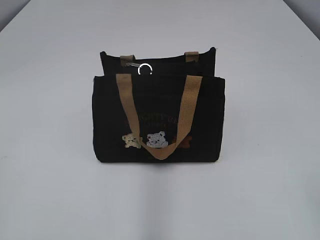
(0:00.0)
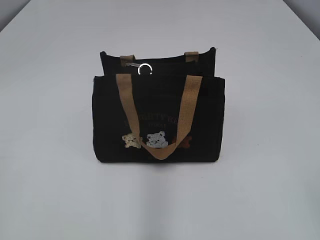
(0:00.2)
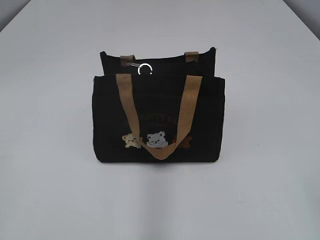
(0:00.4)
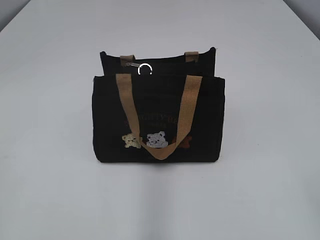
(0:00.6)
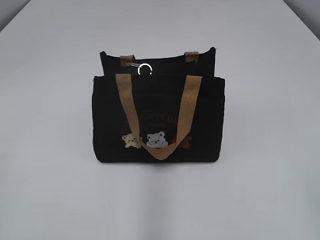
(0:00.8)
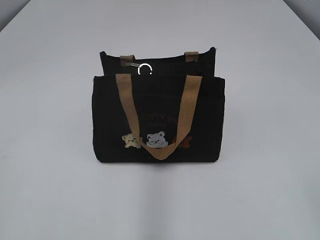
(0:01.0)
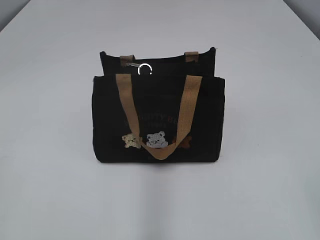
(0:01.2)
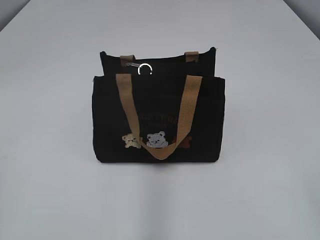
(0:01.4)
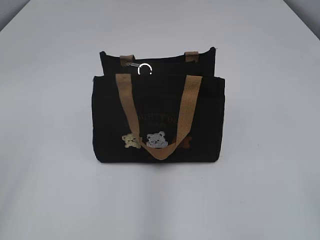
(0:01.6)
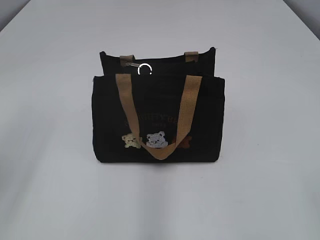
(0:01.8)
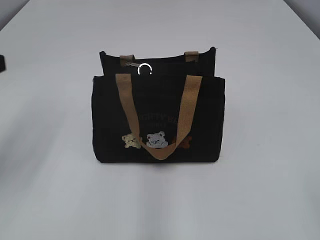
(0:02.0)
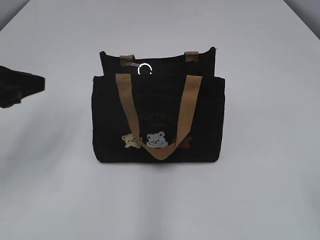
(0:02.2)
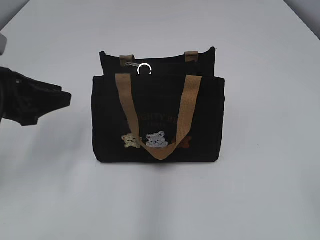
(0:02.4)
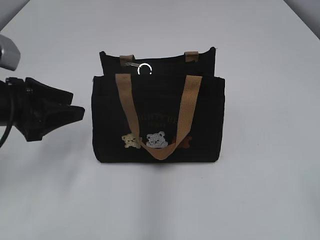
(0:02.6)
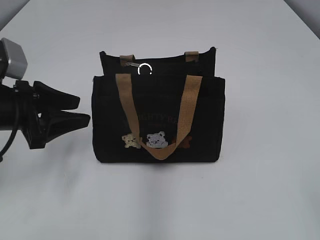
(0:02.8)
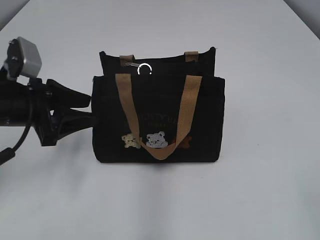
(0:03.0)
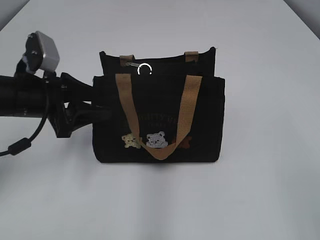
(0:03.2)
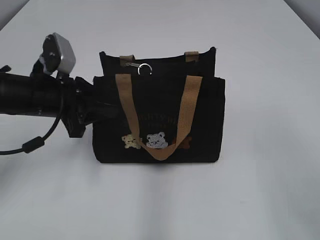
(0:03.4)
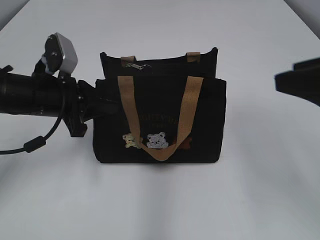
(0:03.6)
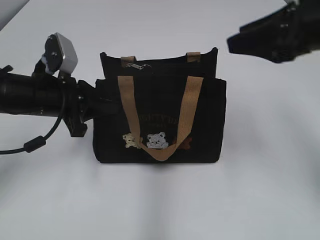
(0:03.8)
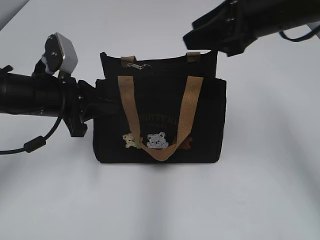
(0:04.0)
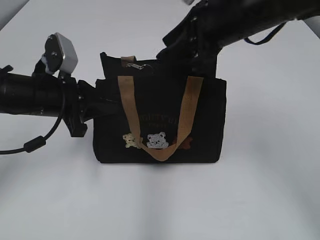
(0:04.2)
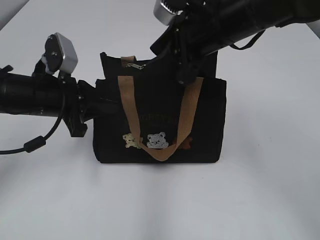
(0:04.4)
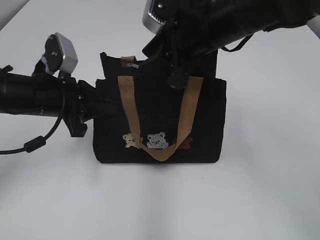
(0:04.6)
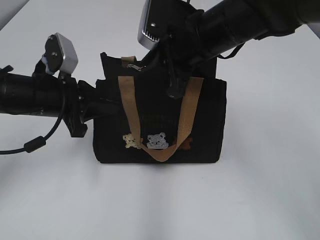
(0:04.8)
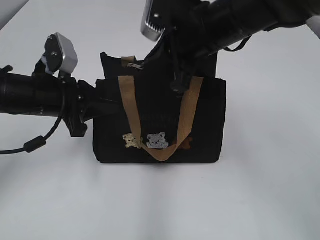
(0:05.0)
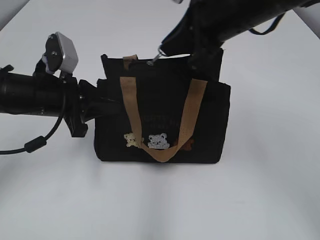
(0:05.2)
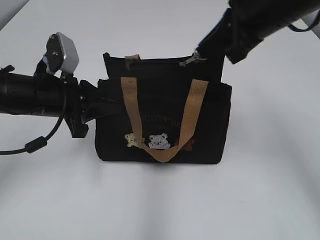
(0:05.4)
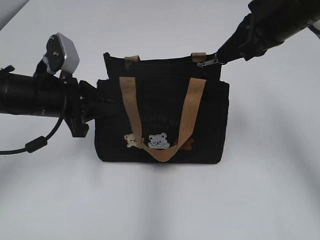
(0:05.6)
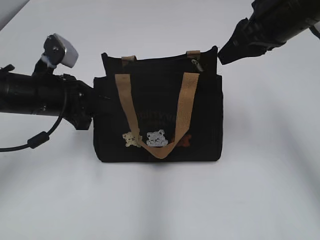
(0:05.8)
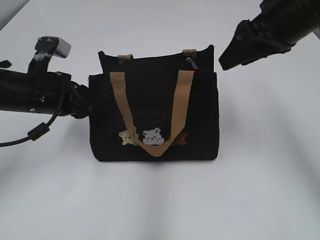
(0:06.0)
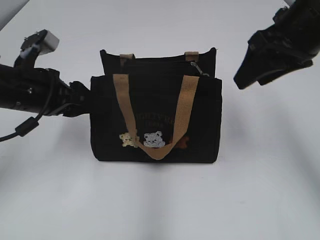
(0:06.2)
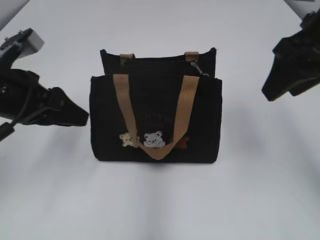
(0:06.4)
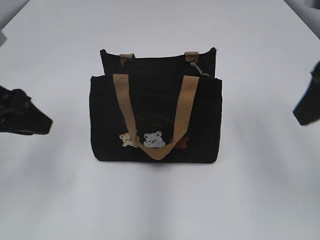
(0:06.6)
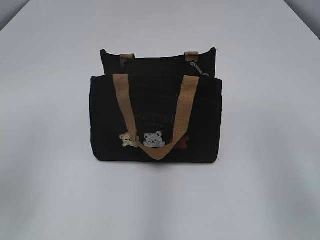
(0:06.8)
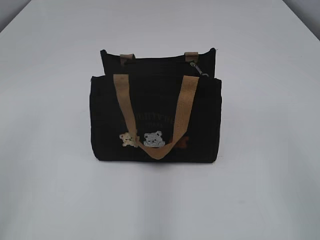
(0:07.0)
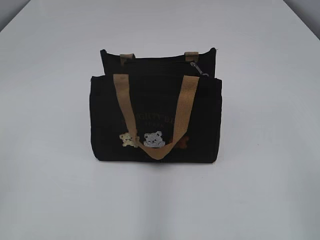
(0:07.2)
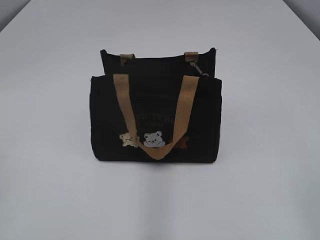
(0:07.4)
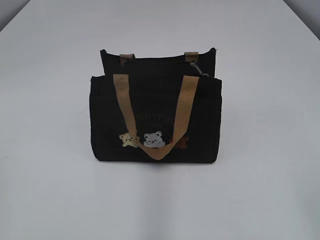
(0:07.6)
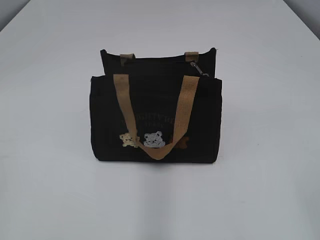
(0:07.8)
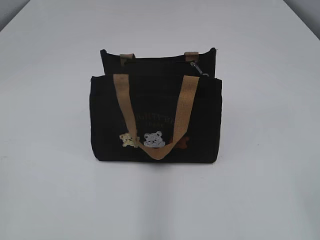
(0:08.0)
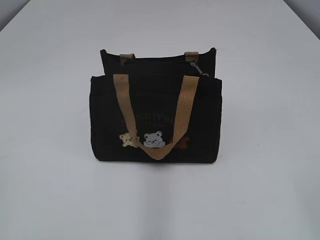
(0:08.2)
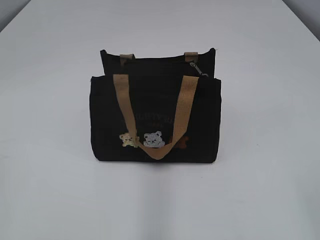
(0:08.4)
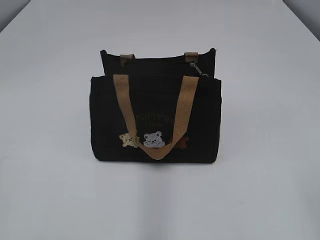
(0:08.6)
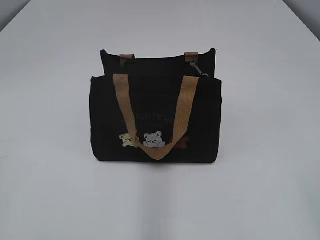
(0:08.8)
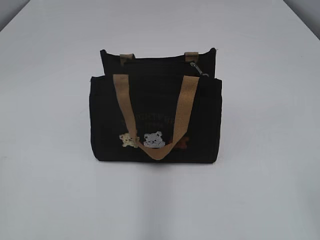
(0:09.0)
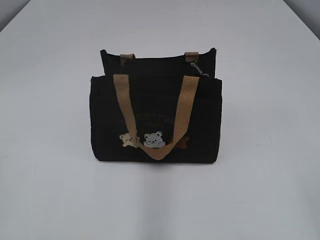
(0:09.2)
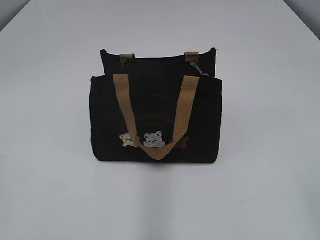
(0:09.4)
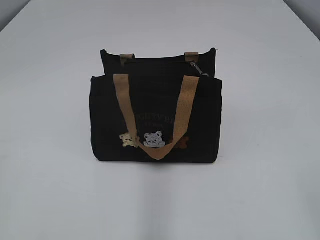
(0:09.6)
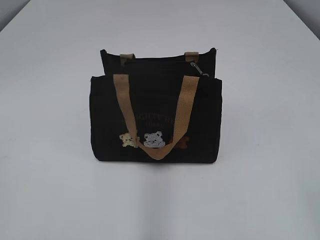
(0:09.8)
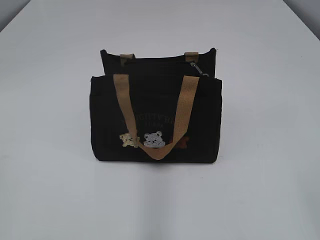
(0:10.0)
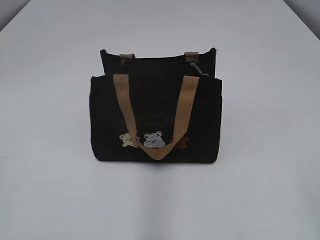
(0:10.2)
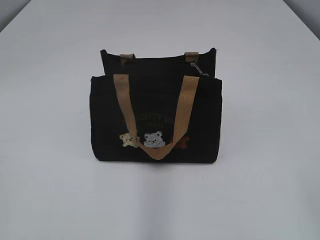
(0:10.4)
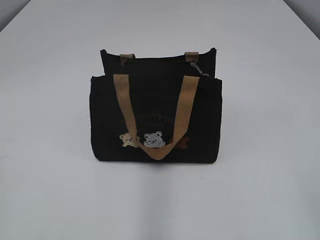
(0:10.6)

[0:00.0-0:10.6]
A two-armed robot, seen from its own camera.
Step, 0:00.0 to 0:05.6: Pull open the zipper with your right hand.
Step, 0:05.8 to 0:06.2: Hold the bag with your left hand.
0:01.6 to 0:03.0: The left gripper heads forward and downward, covering approximately 25 cm, and opens its fingers.
0:03.0 to 0:04.6: The right gripper heads forward and to the left, covering about 40 cm; the left gripper closes.
0:04.6 to 0:06.0: The right gripper goes roughly 10 cm to the right, and closes and opens again.
0:06.0 to 0:07.6: The left gripper travels backward and to the left by some 35 cm; the right gripper travels backward by roughly 30 cm.

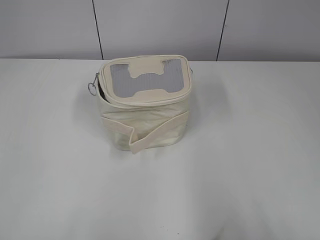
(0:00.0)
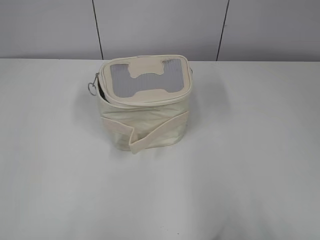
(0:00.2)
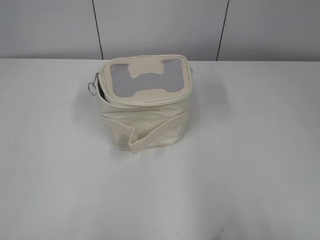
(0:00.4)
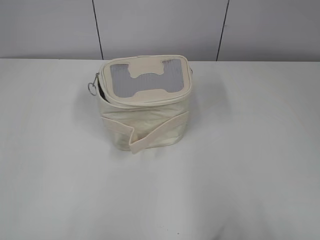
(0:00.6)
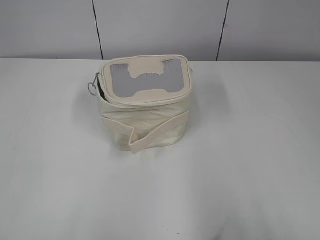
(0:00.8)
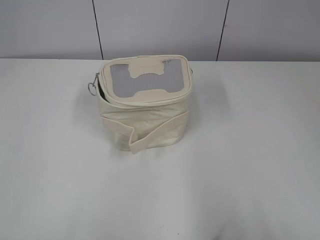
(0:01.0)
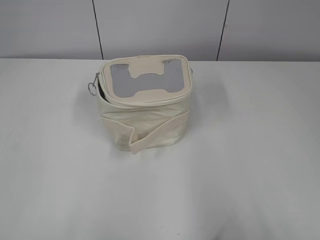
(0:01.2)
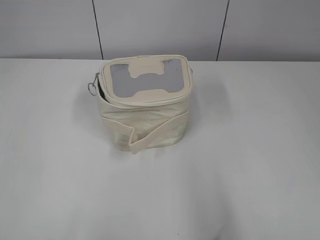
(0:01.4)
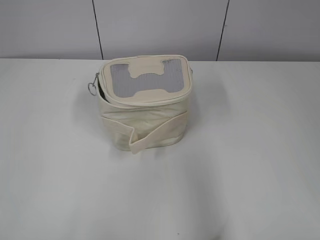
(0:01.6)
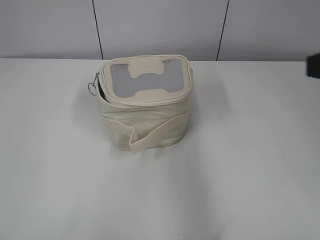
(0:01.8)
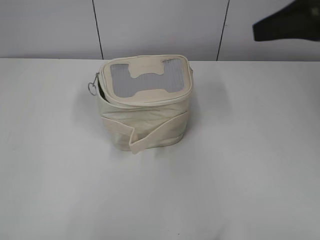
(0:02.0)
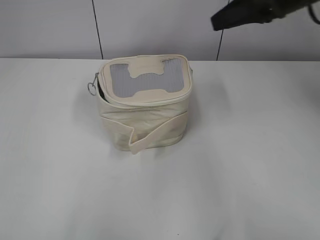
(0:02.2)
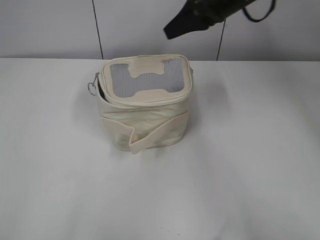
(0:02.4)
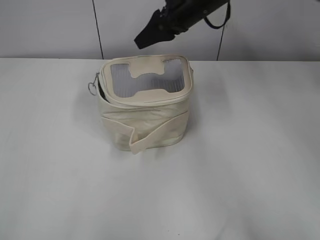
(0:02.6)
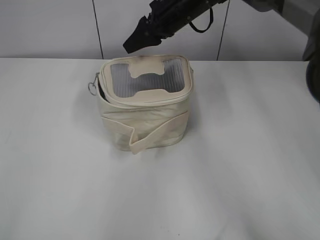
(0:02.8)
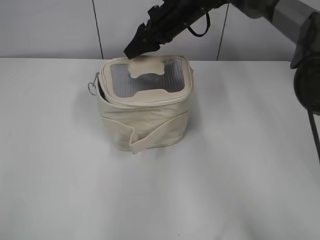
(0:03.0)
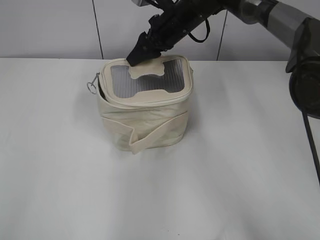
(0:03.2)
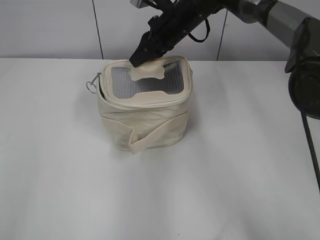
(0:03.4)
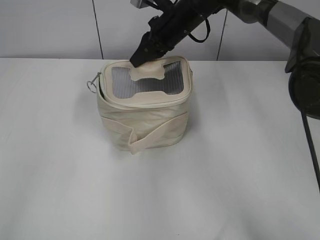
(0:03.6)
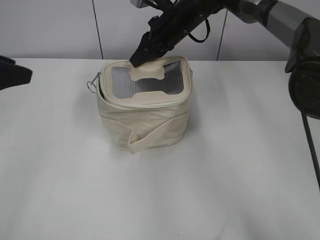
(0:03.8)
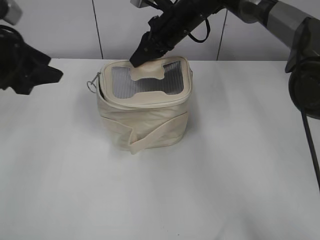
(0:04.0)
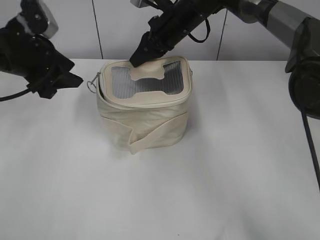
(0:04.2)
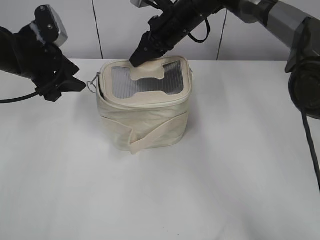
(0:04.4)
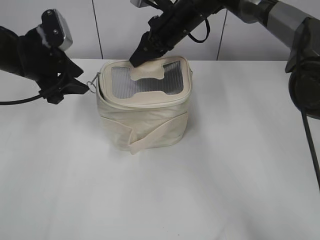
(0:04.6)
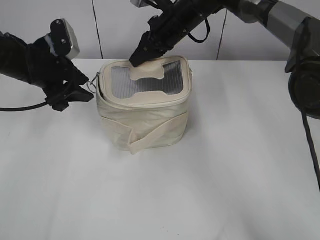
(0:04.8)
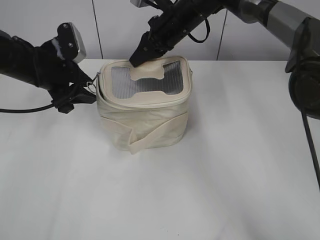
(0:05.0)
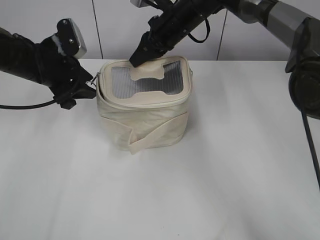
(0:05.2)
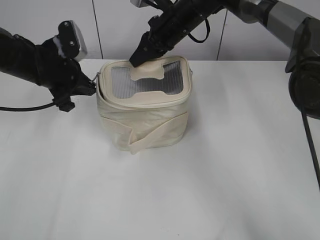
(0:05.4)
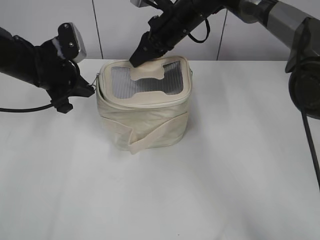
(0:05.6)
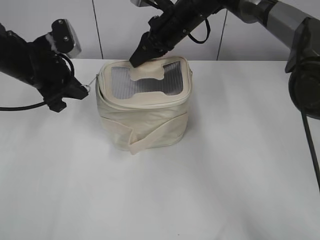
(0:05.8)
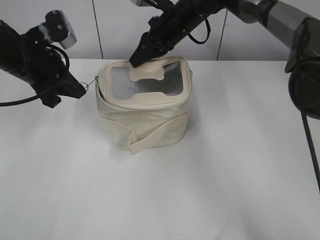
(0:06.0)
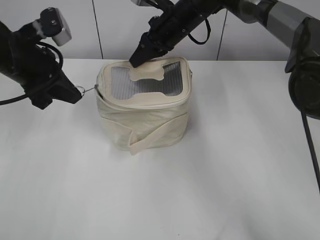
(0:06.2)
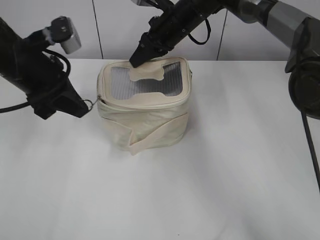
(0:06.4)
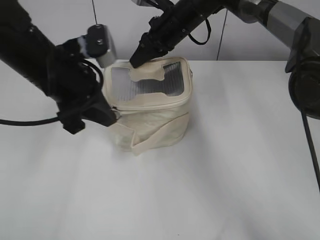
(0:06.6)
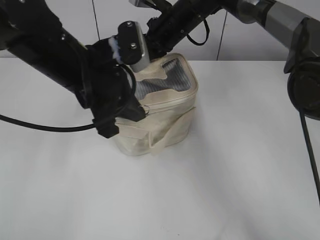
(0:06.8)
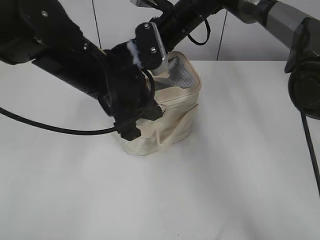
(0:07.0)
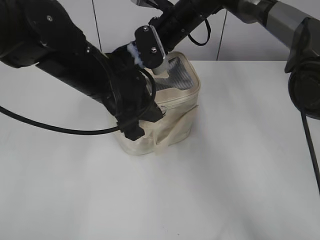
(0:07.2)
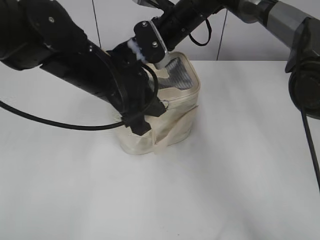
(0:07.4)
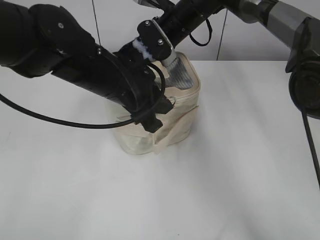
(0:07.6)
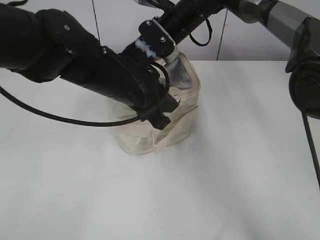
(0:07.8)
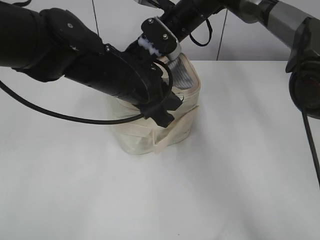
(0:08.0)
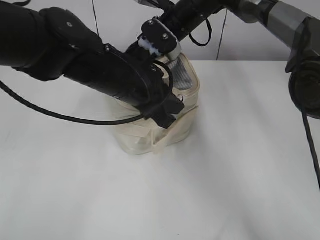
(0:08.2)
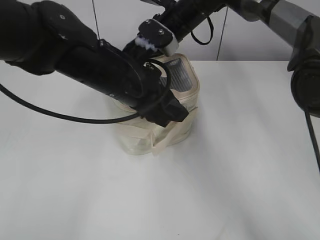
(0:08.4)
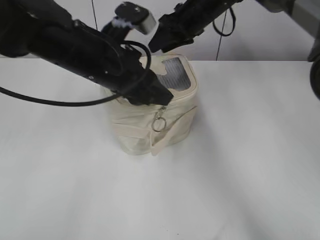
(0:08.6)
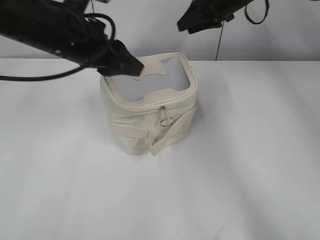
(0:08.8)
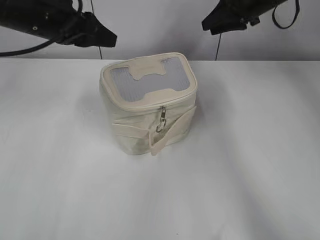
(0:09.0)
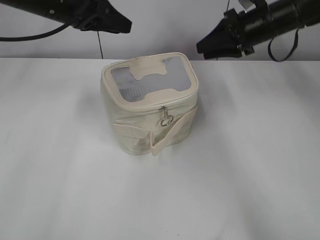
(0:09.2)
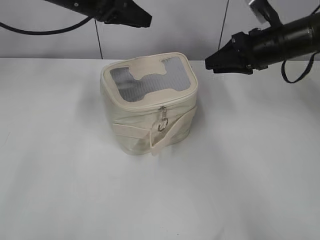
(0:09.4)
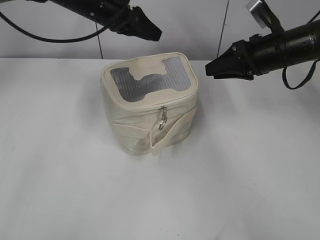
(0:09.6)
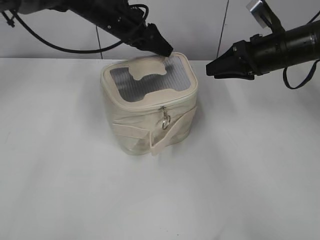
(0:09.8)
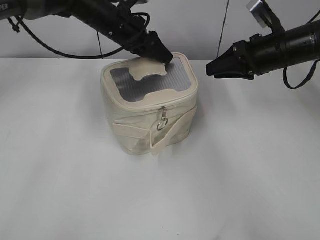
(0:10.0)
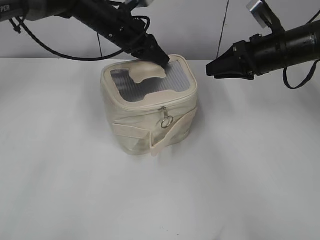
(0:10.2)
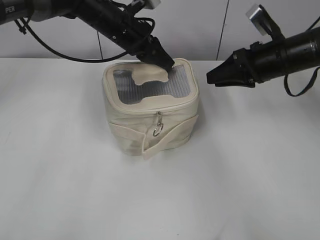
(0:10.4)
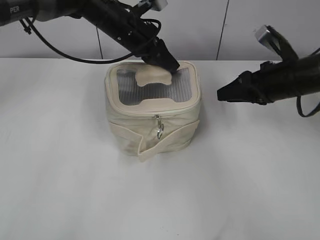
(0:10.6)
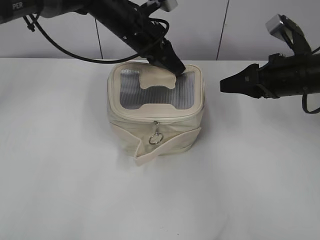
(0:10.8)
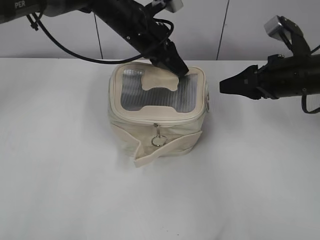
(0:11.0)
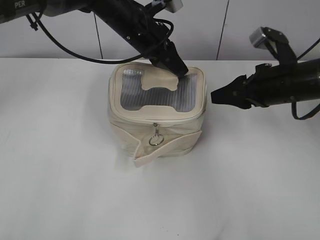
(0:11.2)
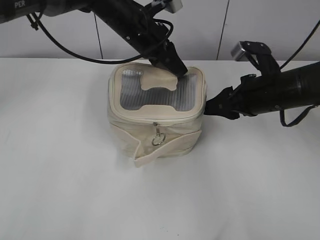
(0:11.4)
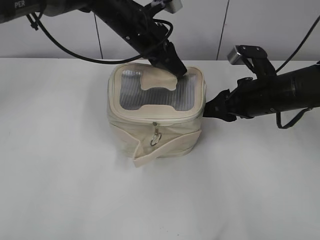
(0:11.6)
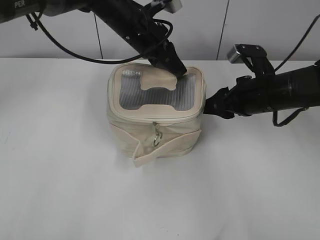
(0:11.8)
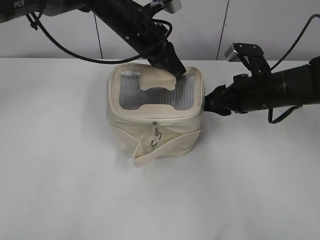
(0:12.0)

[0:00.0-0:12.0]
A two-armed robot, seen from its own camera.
Step, 0:00.0 to 0:08.2: Zip up the bag with your left hand.
0:01.6 to 0:03.0: The right gripper is displaced forward and to the left by roughly 50 cm.
0:03.0 to 0:04.4: The left gripper is displaced forward by some 35 cm, and opens its fingers. The right gripper closes its fingers.
0:04.4 to 0:06.0: The left gripper closes its fingers.
0:06.0 to 0:07.6: The left gripper travels to the right and backward by roughly 15 cm.
0:07.6 to 0:09.0: The right gripper travels to the right by approximately 15 cm, and opens, while the left gripper travels to the left, forward and upward by about 15 cm, and opens up.
0:09.0 to 0:10.4: The left gripper goes about 15 cm forward, to the right and downward, and closes, while the right gripper shifts some 15 cm backward and downward.
0:10.4 to 0:12.0: The right gripper moves backward, roughly 5 cm.
